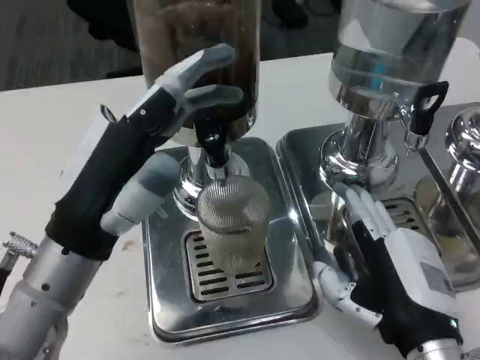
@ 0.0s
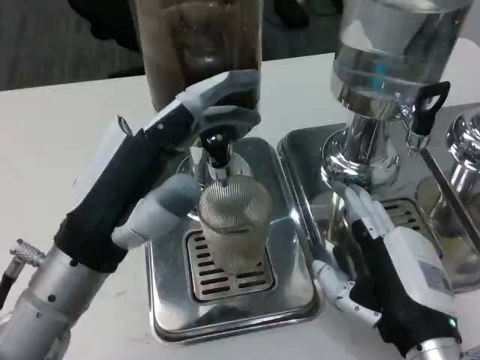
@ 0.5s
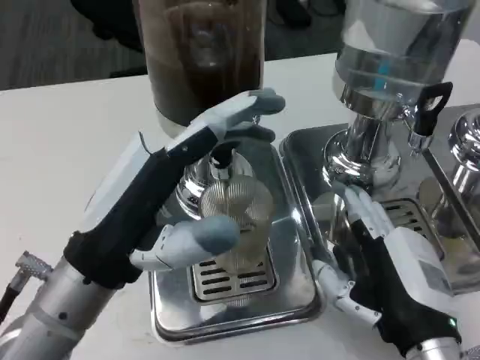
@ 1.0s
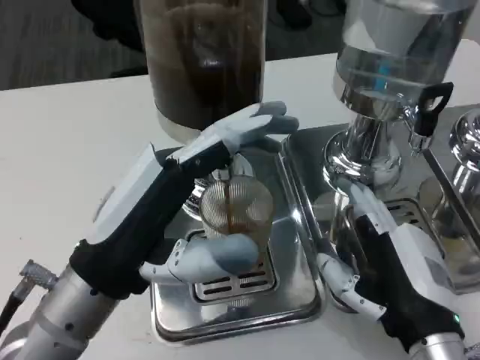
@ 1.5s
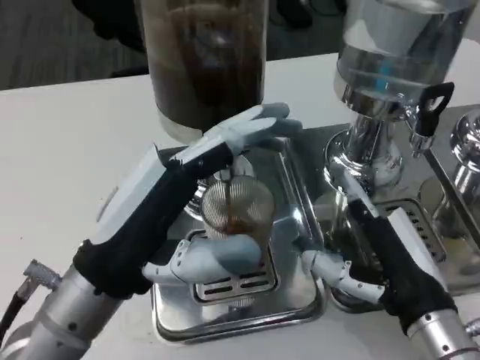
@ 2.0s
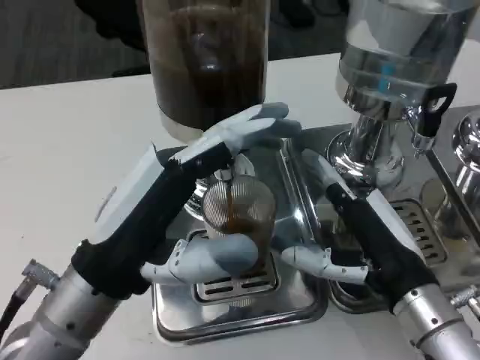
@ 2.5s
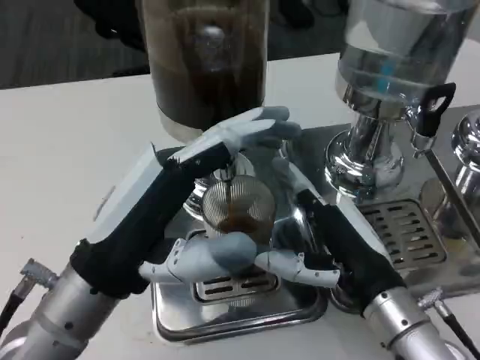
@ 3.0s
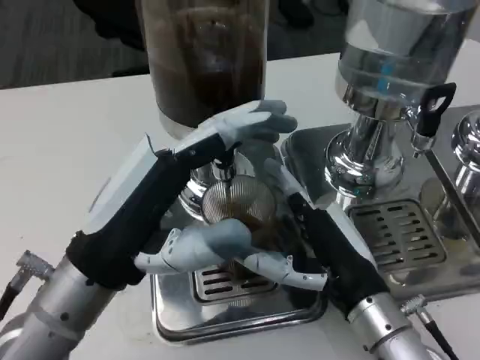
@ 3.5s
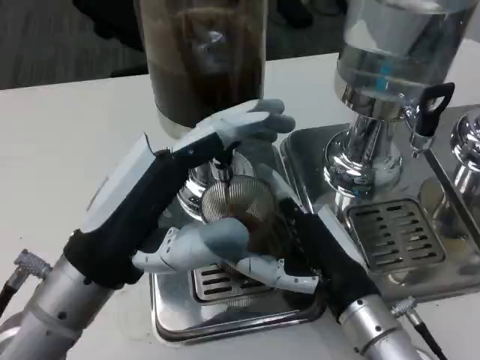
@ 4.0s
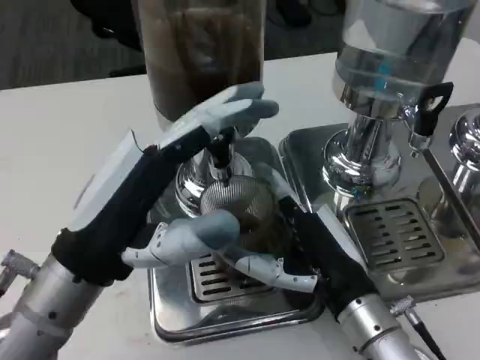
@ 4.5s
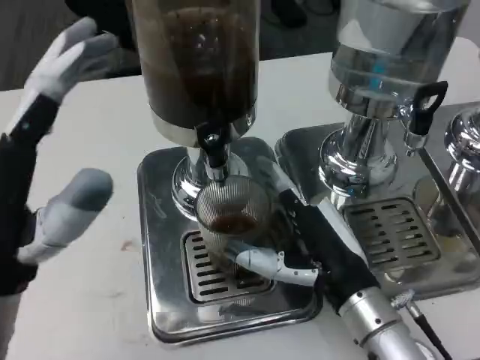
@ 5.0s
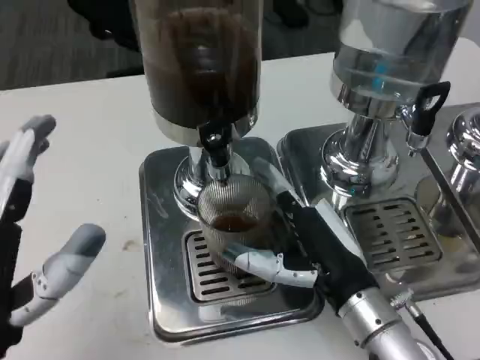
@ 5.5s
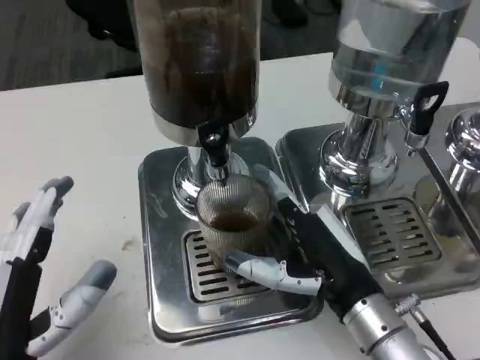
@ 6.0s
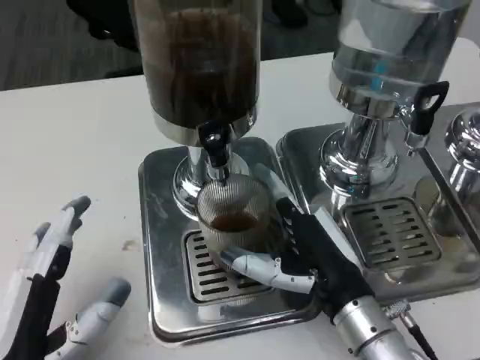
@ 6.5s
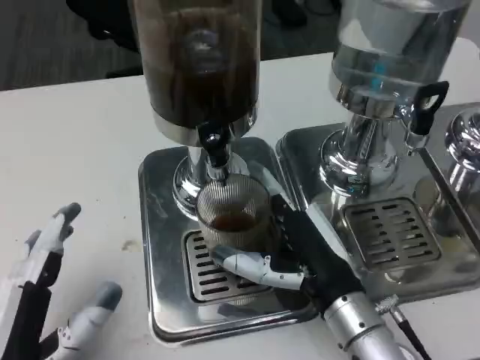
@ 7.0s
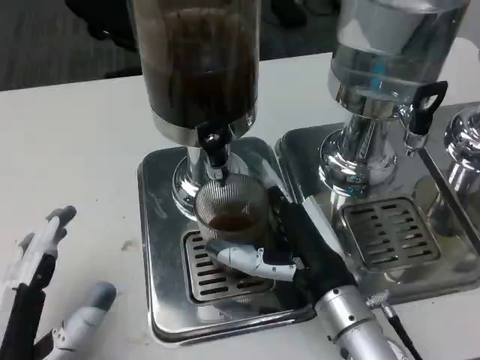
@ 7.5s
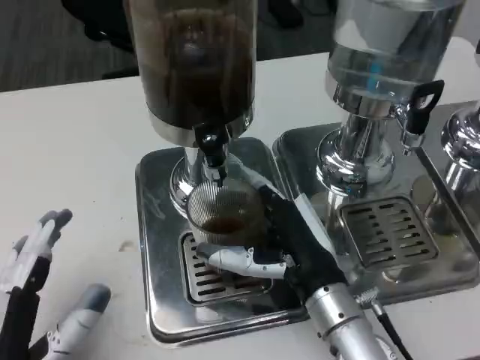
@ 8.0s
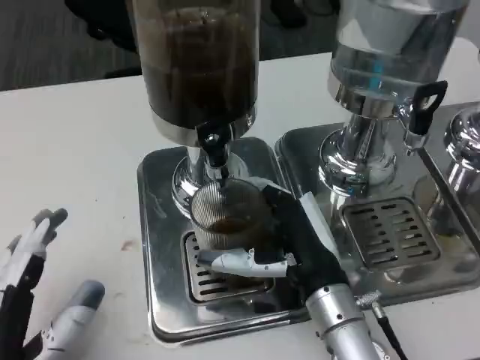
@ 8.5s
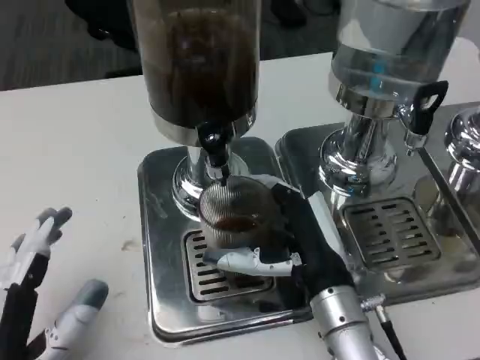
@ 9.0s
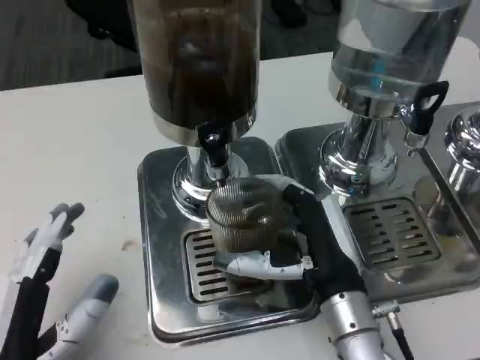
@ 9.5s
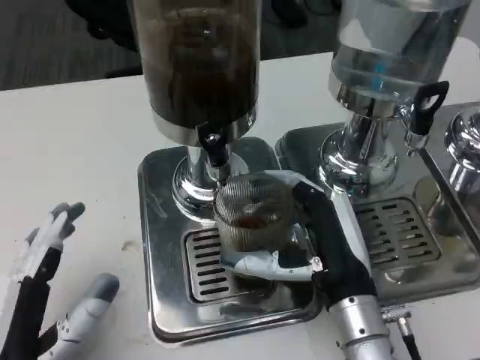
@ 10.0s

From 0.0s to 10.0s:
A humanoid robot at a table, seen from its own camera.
Task of the whole recording: Grasp the cup under the faucet to collect the drink, then remove the cup.
From 2.0s to 4.0s: The right hand moves approximately 5 cm.
From 4.0s to 6.0s: The left hand moves downward, backward and to the left, approximately 15 cm.

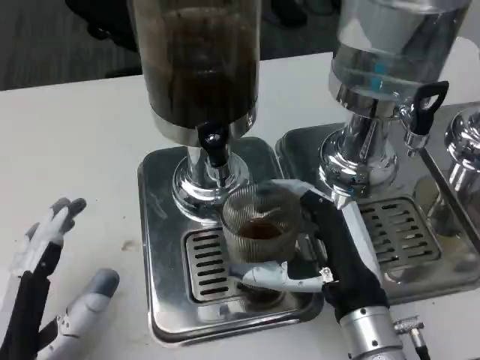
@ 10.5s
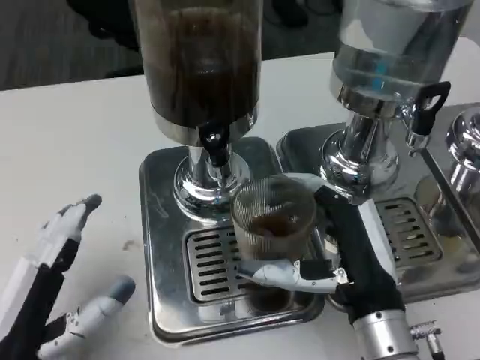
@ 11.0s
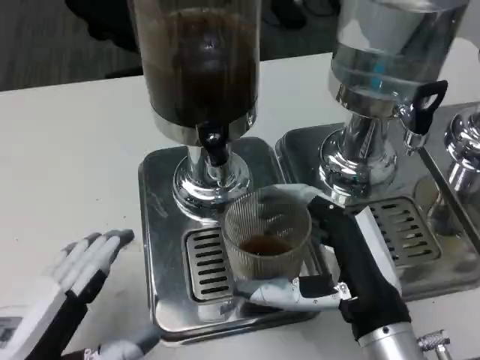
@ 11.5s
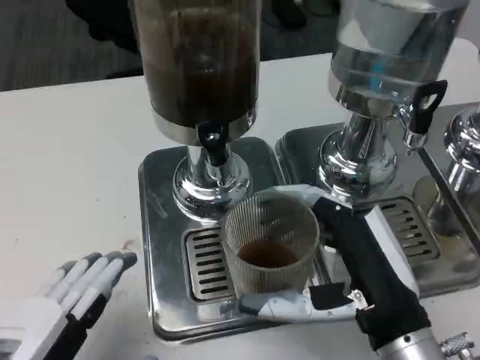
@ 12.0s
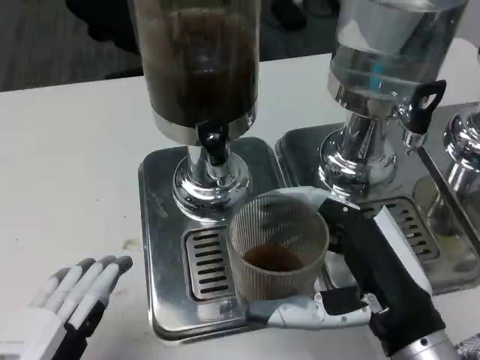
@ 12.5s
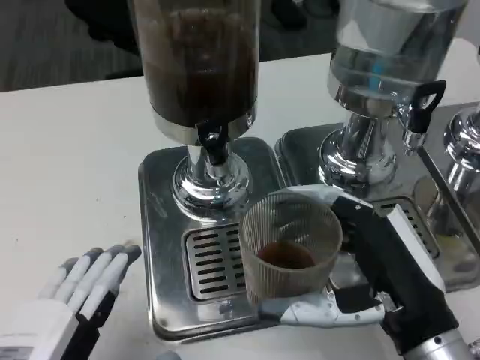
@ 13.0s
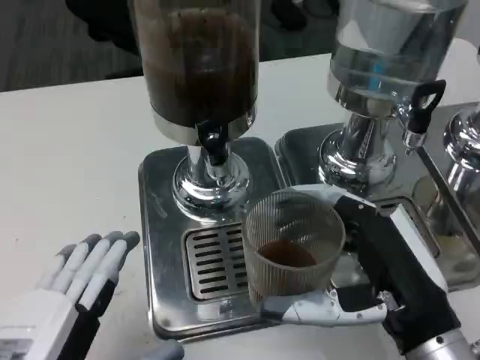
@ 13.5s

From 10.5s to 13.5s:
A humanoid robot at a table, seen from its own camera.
Task of the whole recording: Grasp the cup under the faucet to collect the drink, then remove the cup.
From 10.5s to 12.0s: The left hand is displaced upward by approximately 5 cm. Meanwhile the right hand moves roughly 5 cm.
From 12.0s to 13.5s: The hands move only a little.

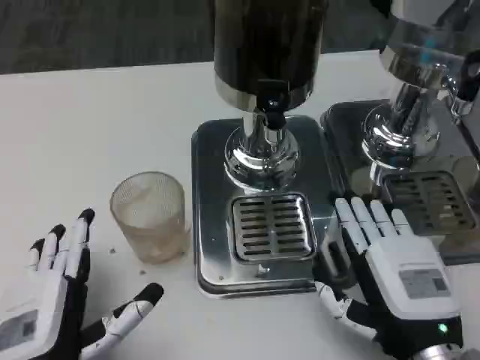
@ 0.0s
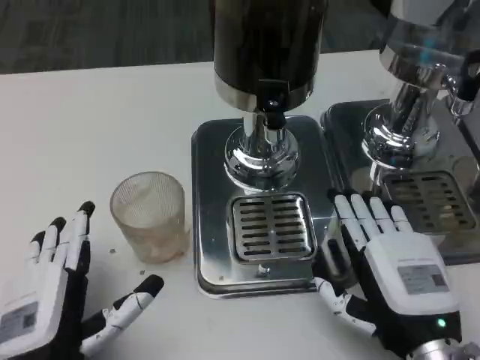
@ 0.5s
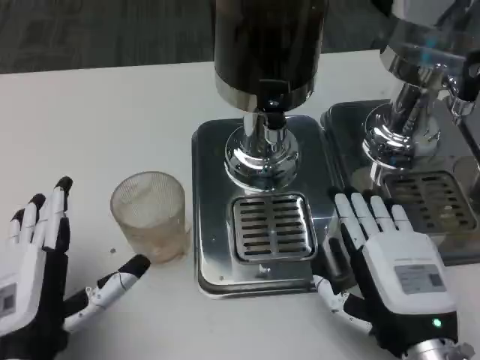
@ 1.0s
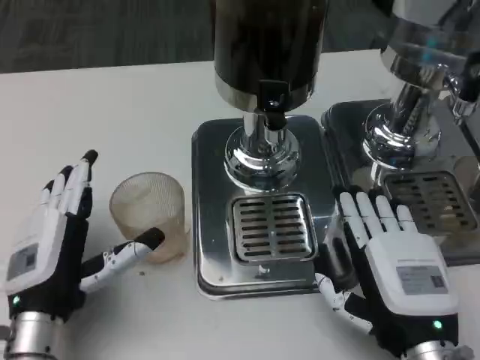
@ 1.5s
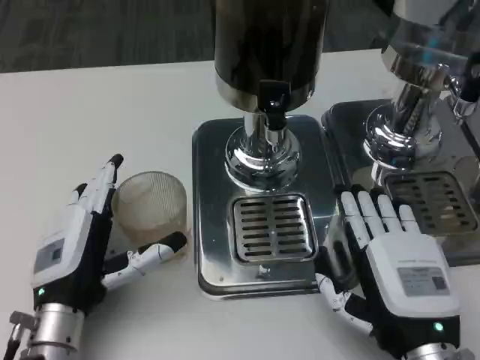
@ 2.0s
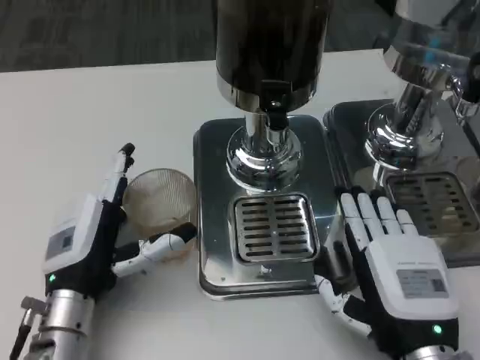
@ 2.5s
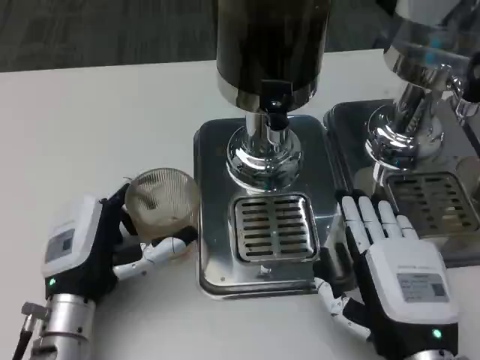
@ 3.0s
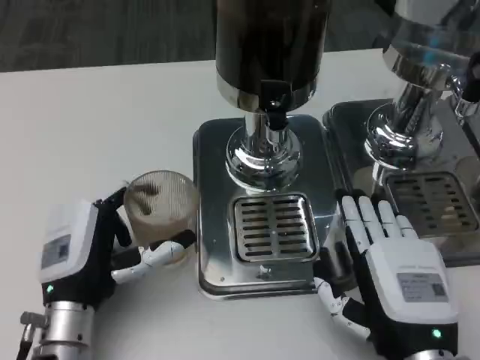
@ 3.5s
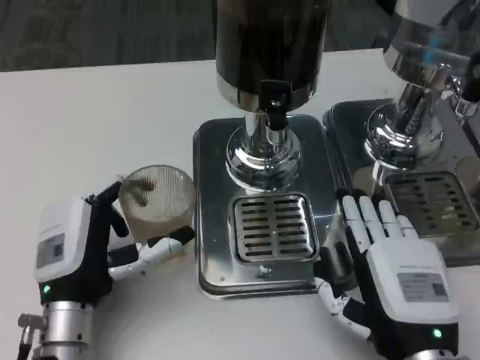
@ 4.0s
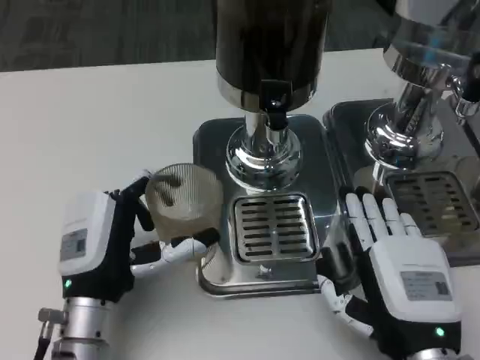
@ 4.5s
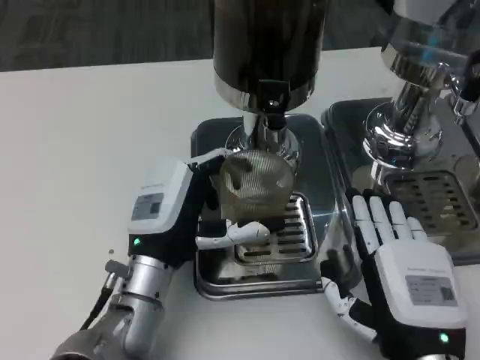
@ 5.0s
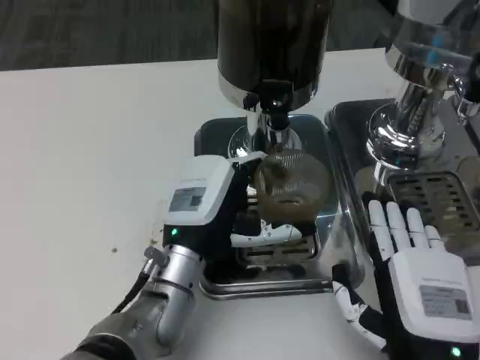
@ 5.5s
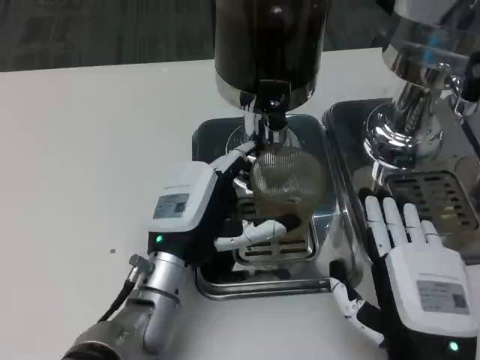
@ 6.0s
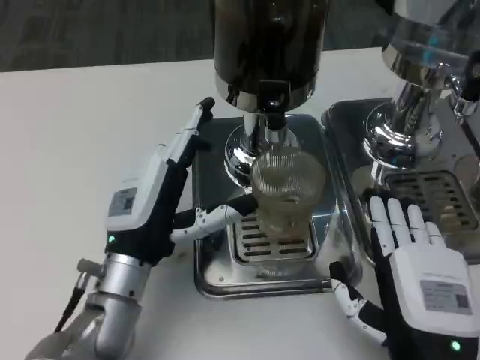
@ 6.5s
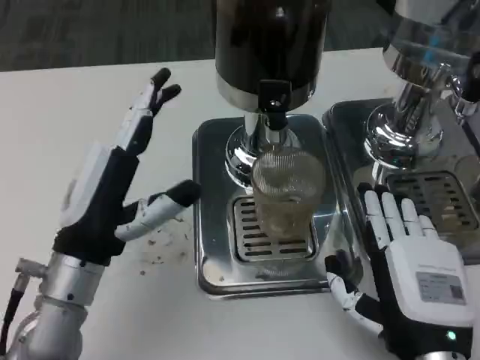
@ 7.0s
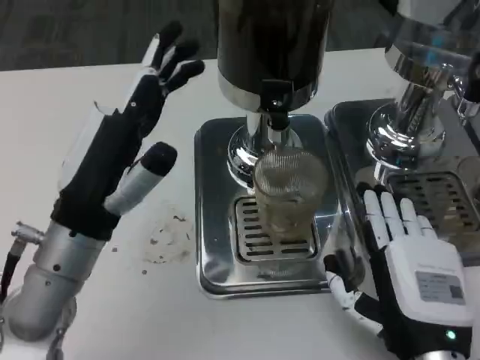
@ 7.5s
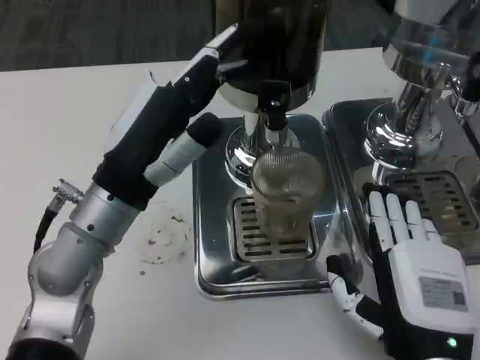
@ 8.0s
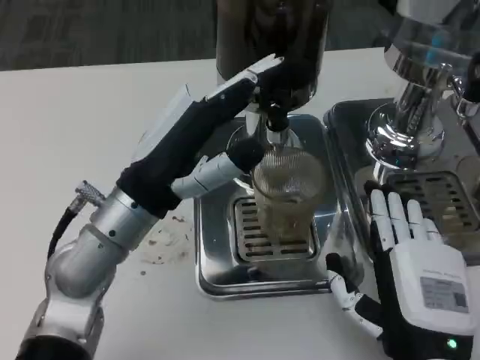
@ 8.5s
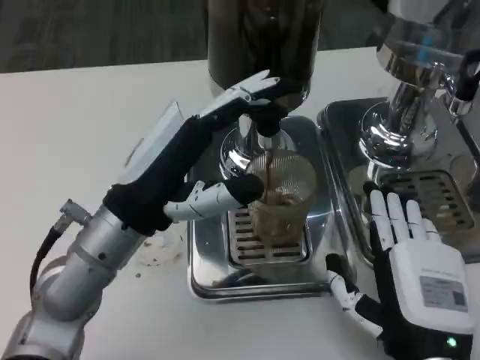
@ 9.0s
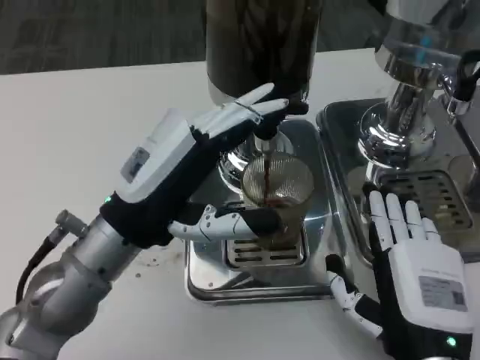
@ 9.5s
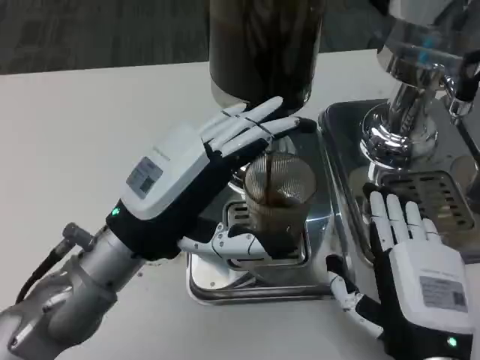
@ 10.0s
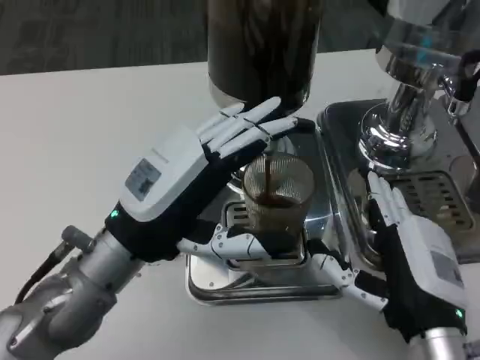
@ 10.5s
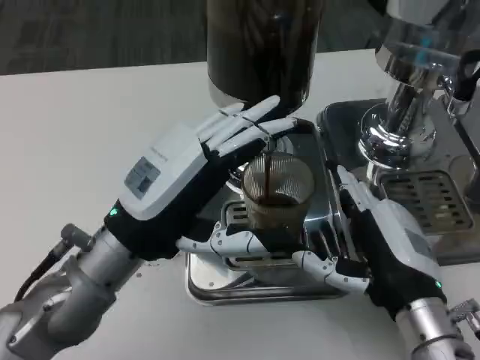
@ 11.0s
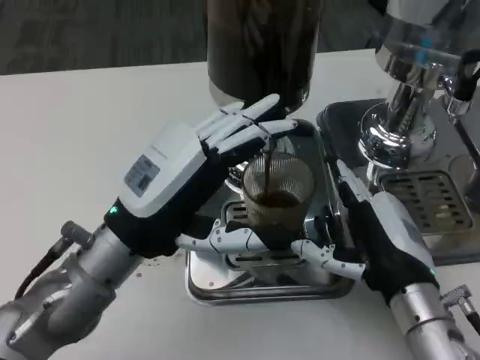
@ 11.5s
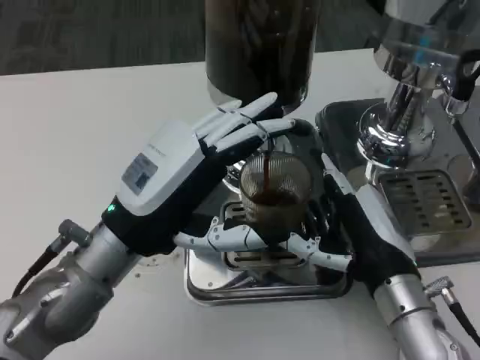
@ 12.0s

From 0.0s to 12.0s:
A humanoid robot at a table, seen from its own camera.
Task of the whole recording: Grasp the cup under the faucet to collect the drink, then remove the cup.
From 0.0s to 2.0s: The left hand moves forward, some 10 cm.
From 2.0s to 4.0s: The hands make only small movements.
From 4.0s to 6.0s: The left hand goes some 10 cm to the right.
From 6.0s to 8.0s: The left hand is displaced upward and to the left by approximately 10 cm.
From 10.0s to 12.0s: The right hand travels forward by roughly 10 cm.

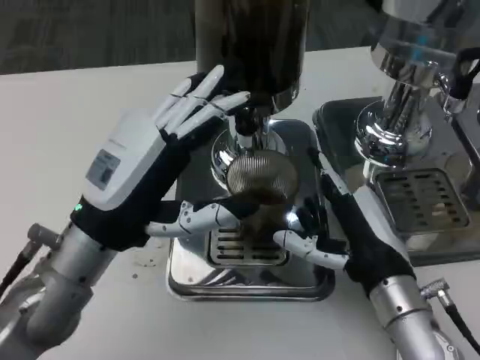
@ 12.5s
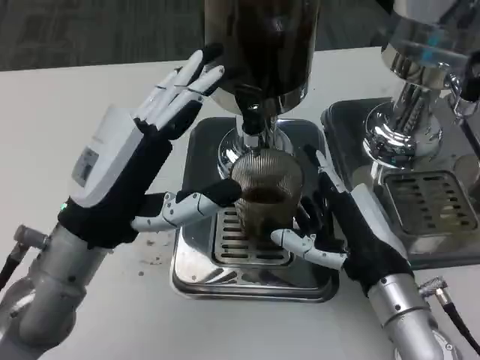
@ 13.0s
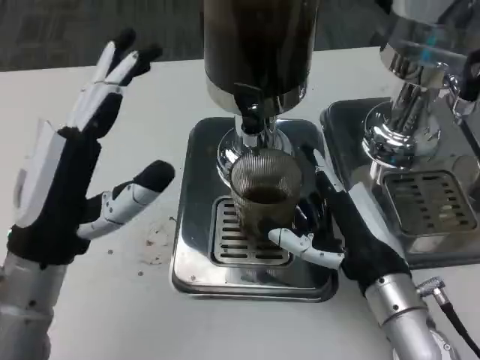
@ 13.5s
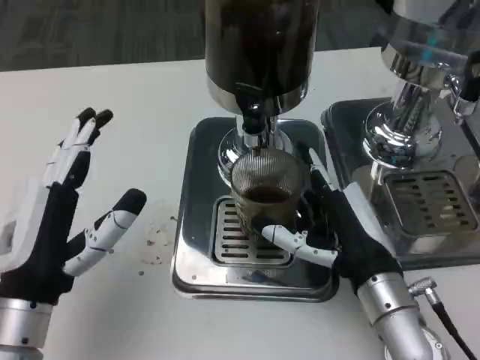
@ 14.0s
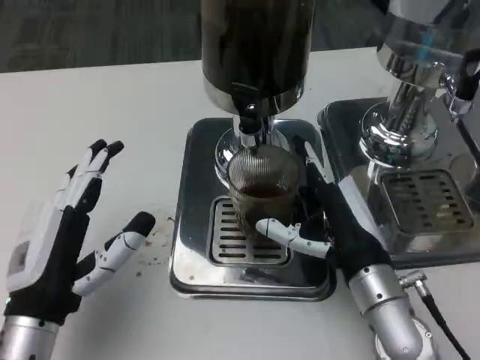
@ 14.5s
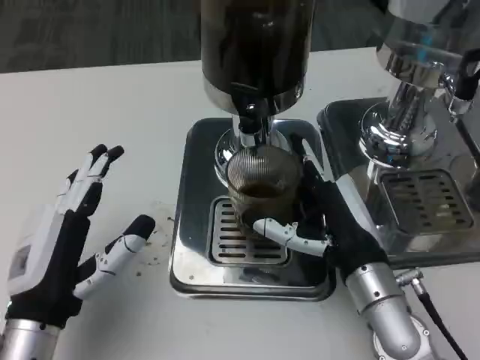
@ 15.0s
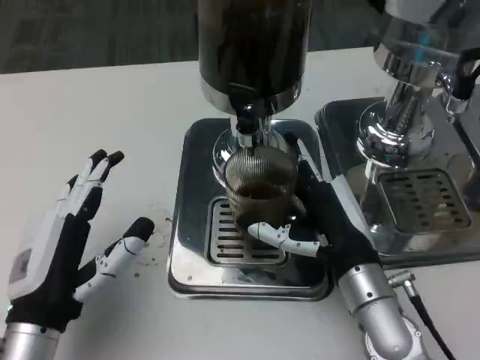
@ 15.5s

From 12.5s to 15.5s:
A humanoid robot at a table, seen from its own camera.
Task of the whole recording: Grasp the cup under the faucet to collect the drink, then remove the cup.
From 12.5s to 14.0s: The left hand is displaced backward by approximately 5 cm.
